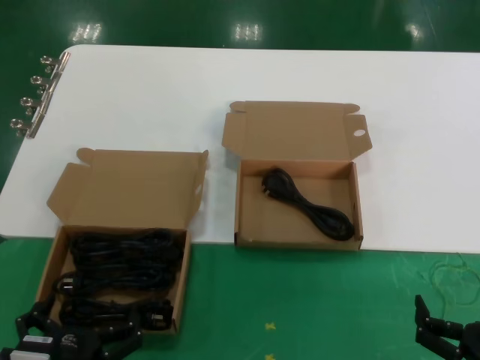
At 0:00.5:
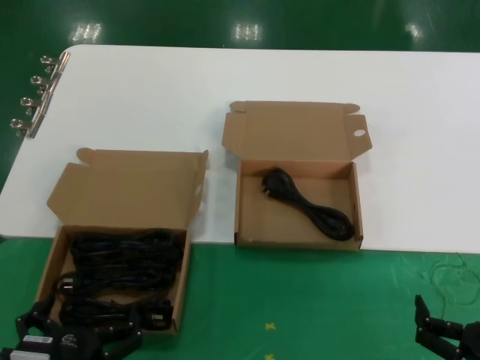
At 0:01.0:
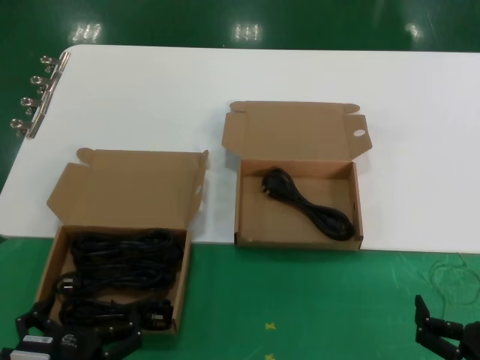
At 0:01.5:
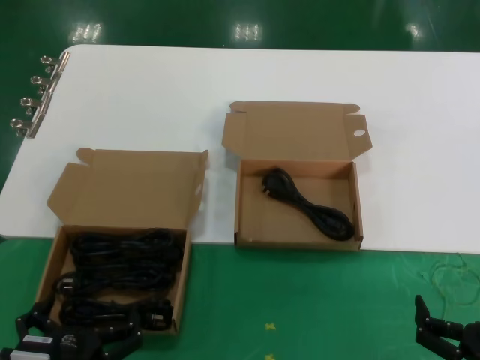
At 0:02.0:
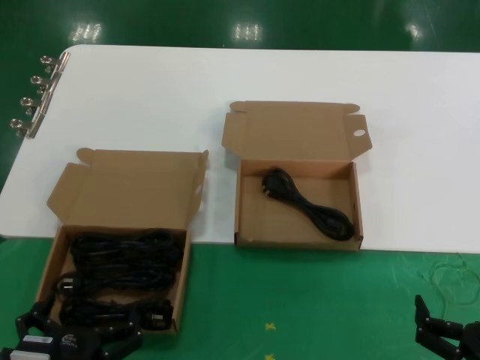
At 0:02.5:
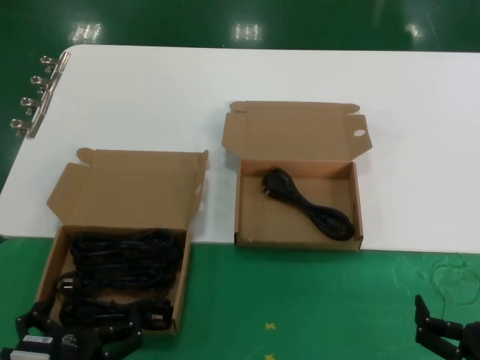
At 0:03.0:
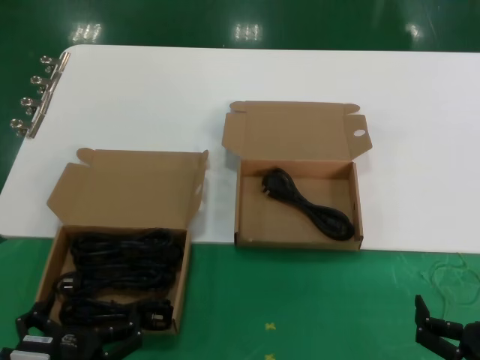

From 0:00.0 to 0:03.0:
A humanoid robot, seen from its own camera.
Task of the whole recording: take the parts from the box containing them and put them into an empty box.
From 0:00.0 to 0:03.0: Neither hand changes place.

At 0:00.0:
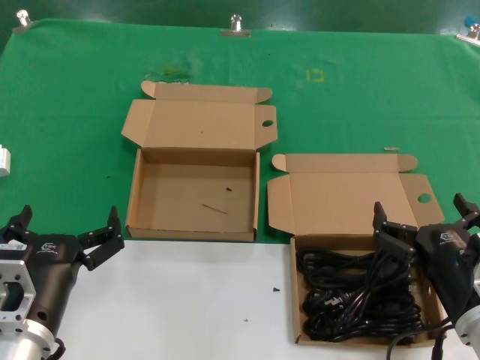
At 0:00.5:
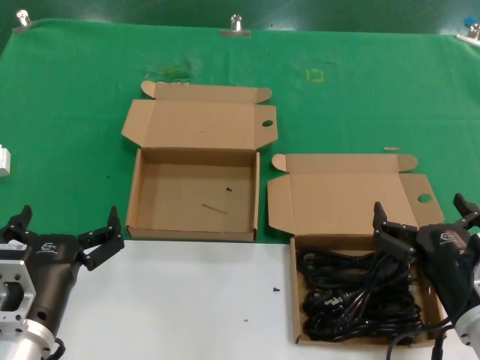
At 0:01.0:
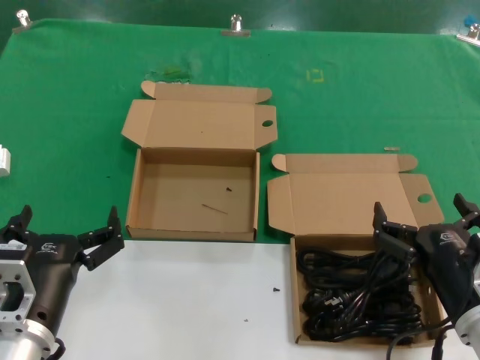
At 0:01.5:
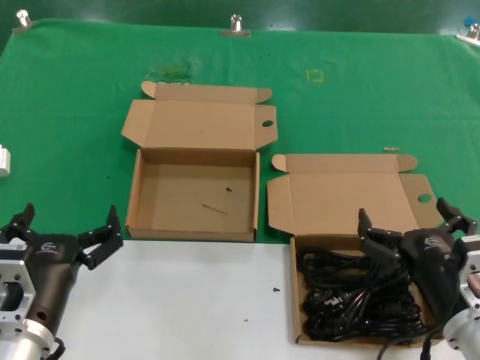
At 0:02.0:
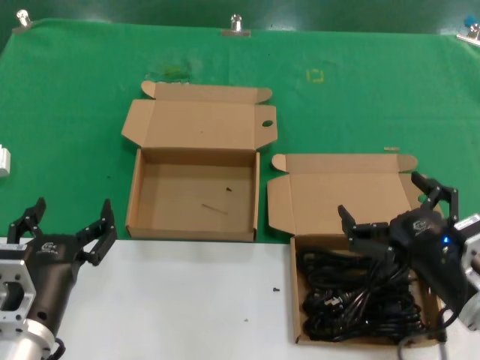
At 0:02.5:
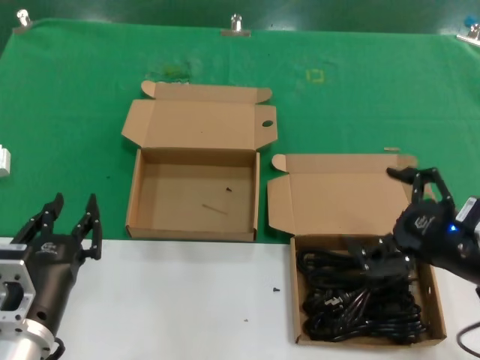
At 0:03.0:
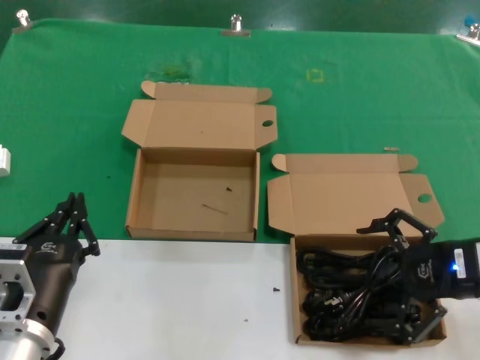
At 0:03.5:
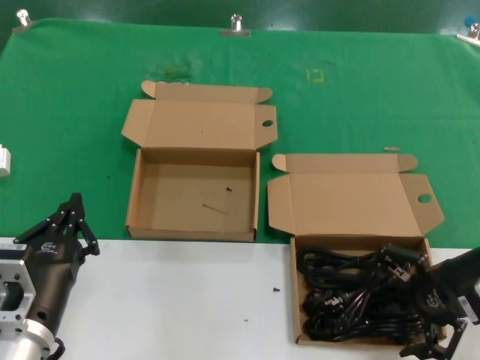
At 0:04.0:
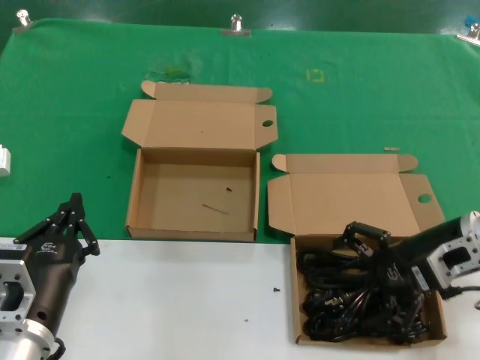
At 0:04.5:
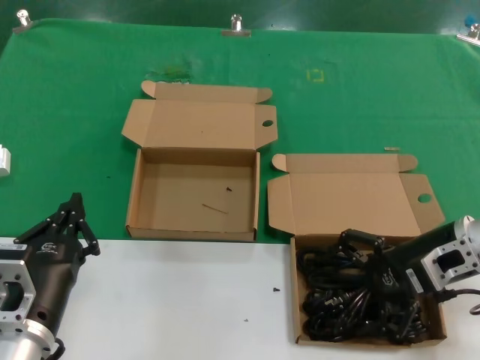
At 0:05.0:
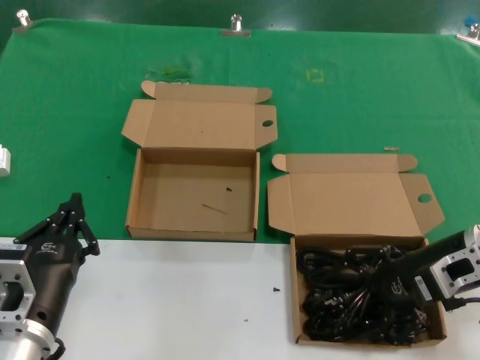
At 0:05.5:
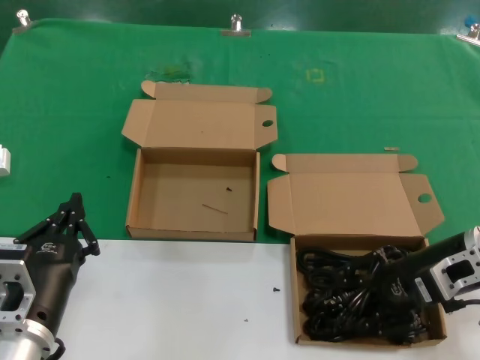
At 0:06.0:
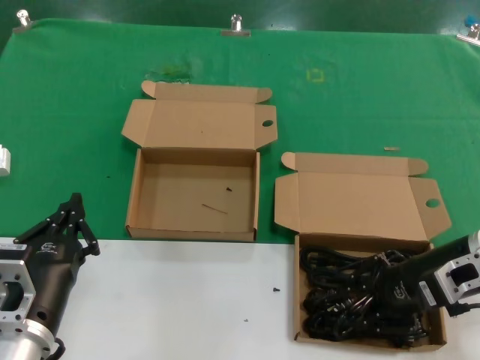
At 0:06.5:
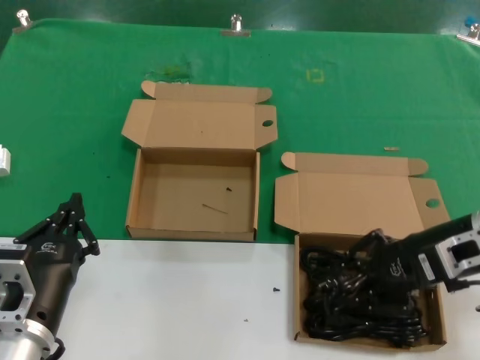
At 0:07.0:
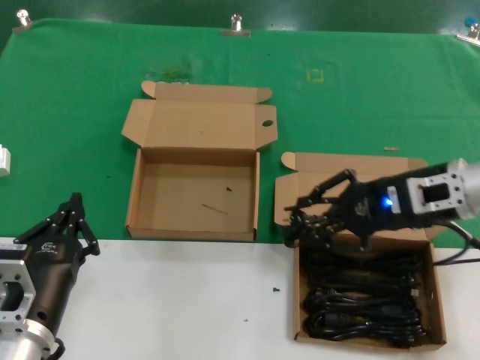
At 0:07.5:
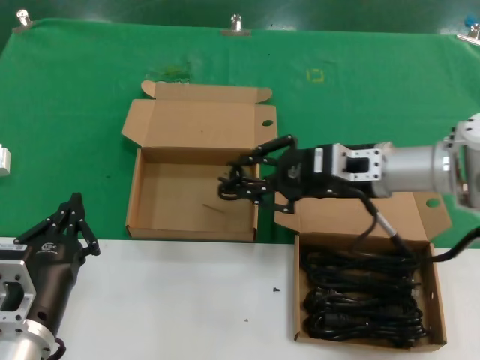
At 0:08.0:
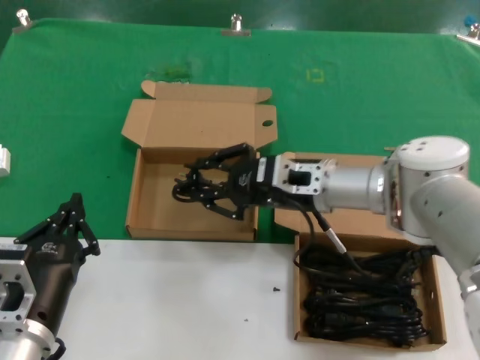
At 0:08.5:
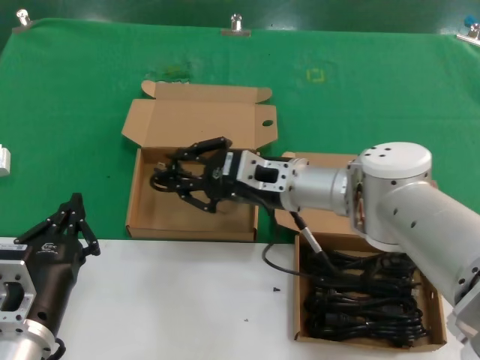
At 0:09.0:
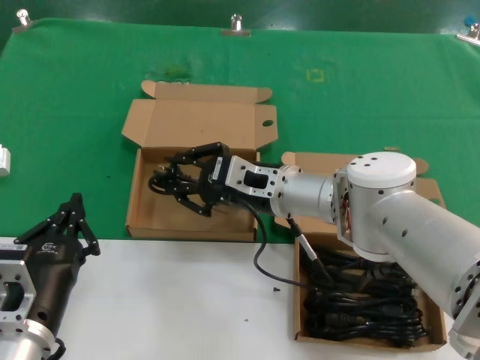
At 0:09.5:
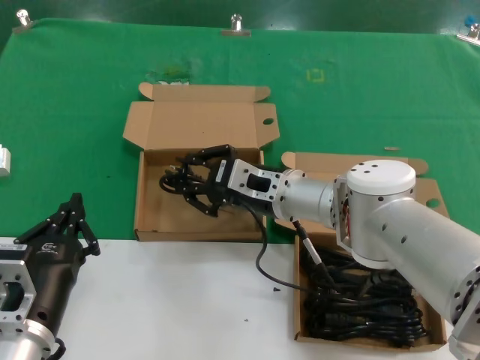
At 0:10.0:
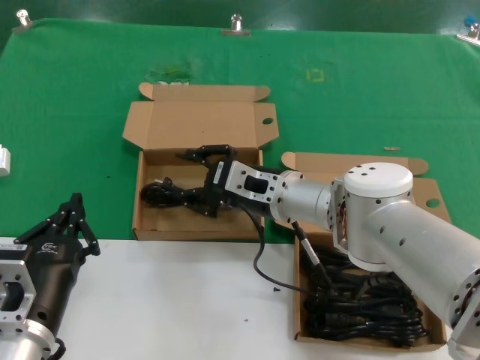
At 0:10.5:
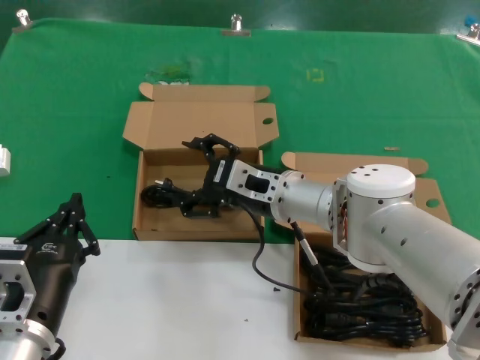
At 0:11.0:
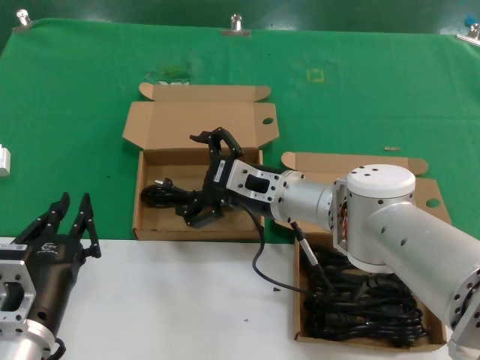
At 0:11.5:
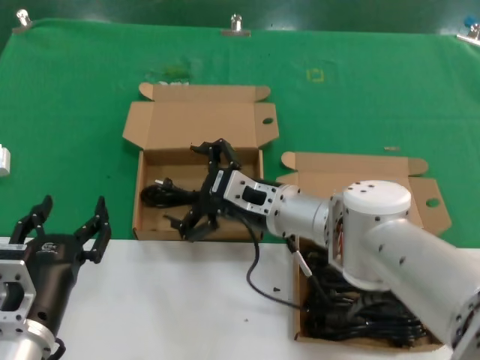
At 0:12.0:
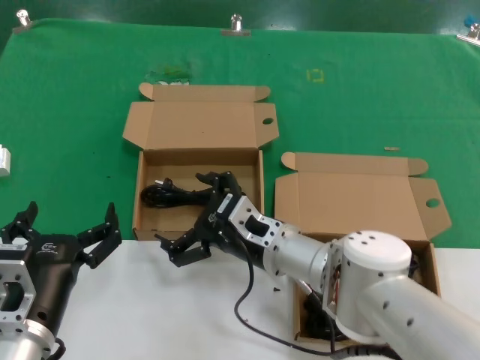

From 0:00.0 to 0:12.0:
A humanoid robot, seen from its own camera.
Task of the whole recording: take the parts from the box containing them and put them into an empty box.
Step, from 0:00.0 to 0:05.5: Grasp the data cable.
Step, from 0:06.0 to 0:10.0: Place the data cable in the another box.
From 0:00.0 to 0:02.0: The hands move only a little.
From 0:02.0 to 0:04.0: The right hand moves forward, upward and to the right, some 15 cm.
From 0:04.0 to 0:06.0: The hands stay close to where they were, moving slightly.
From 0:06.0 to 0:08.0: The right hand heads to the left and forward, covering about 20 cm.
From 0:08.0 to 0:10.0: The right hand shifts roughly 5 cm to the left.
From 0:10.0 to 0:12.0: The right hand shifts approximately 10 cm downward and backward.

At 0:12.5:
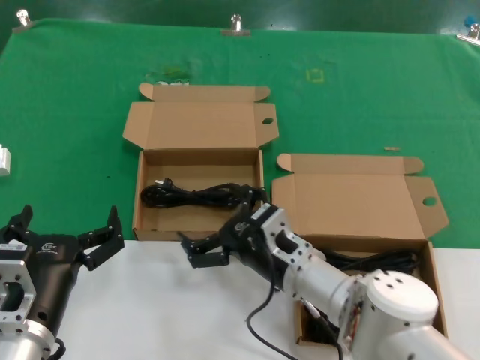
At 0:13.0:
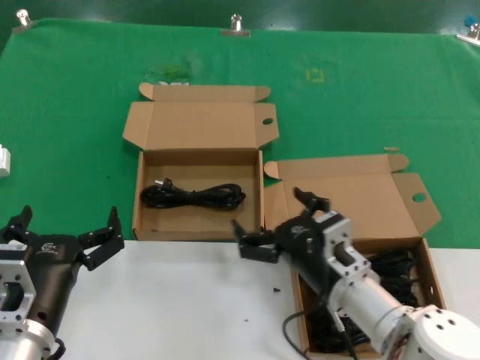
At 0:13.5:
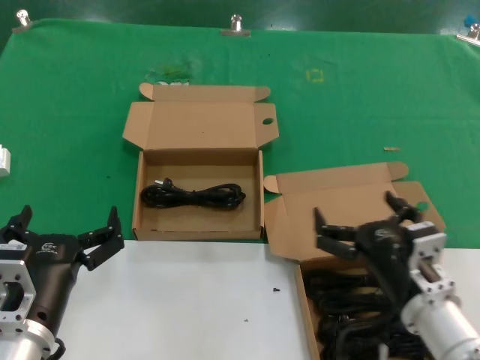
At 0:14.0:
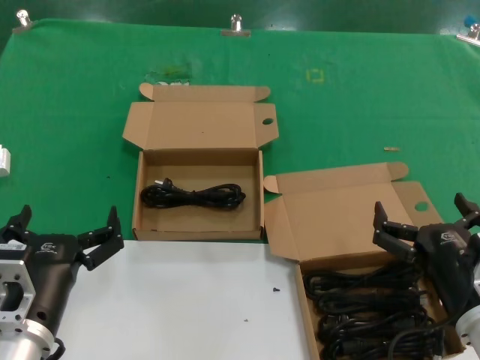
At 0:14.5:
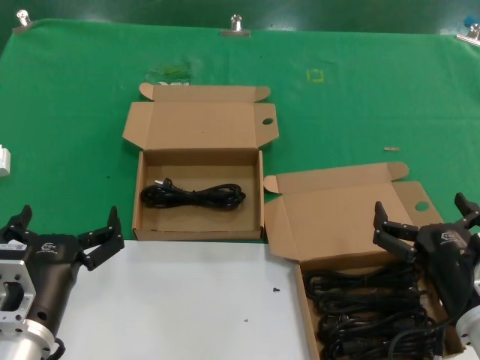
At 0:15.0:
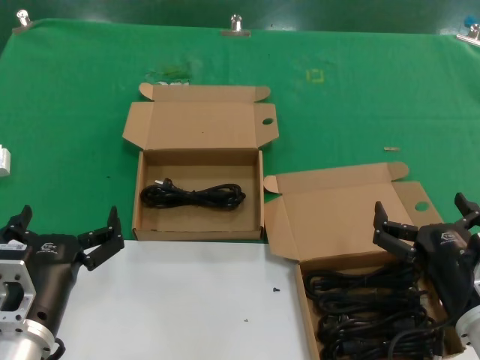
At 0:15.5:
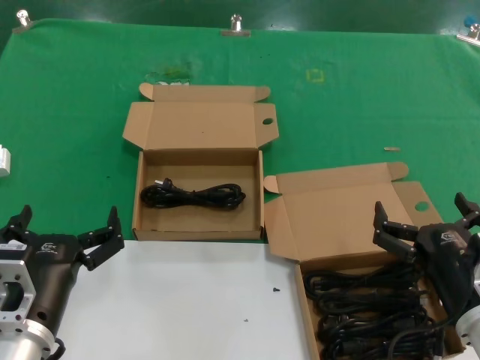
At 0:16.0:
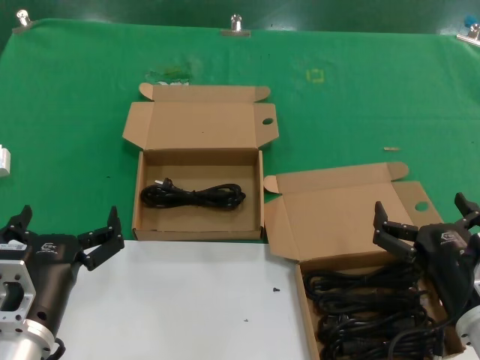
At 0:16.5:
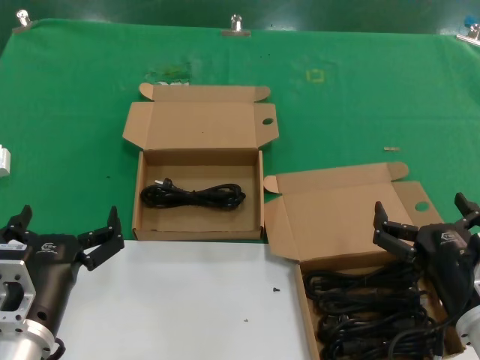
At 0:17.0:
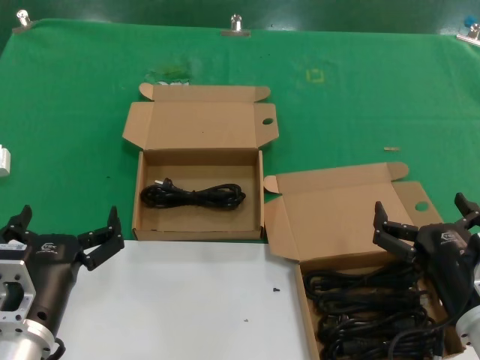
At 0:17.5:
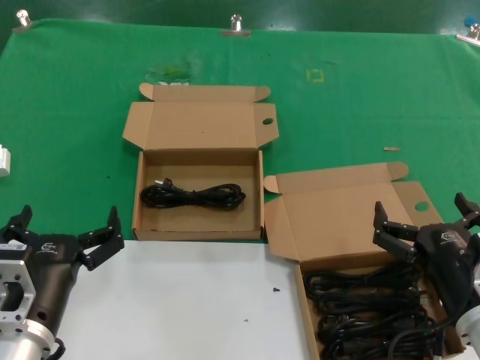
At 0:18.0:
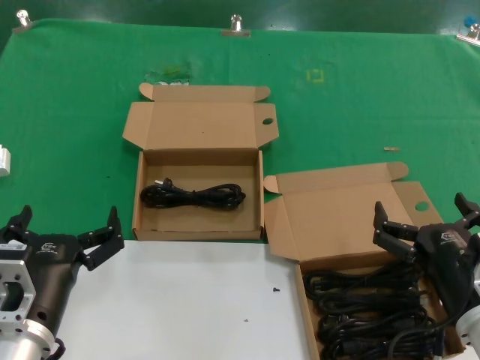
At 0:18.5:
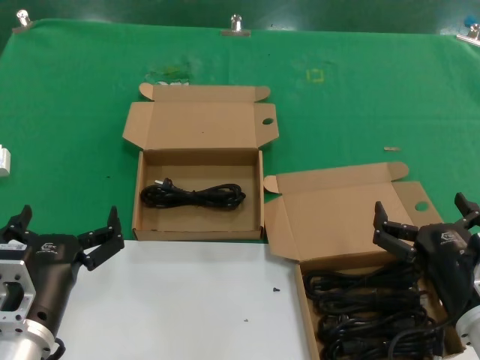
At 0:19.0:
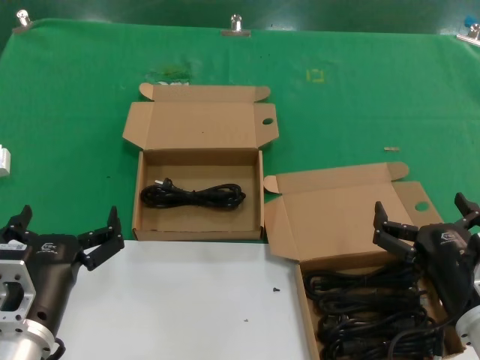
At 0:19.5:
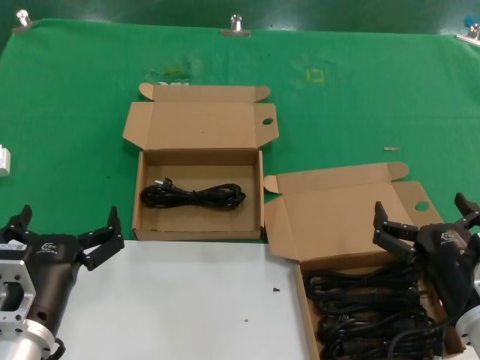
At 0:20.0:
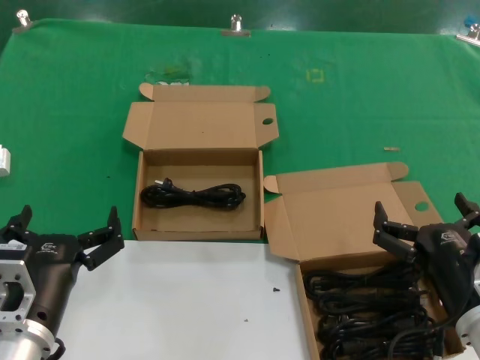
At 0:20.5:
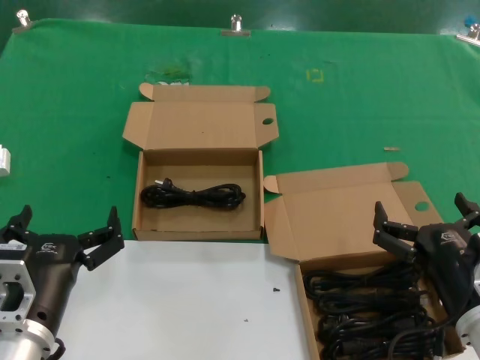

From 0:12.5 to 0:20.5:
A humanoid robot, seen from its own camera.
Task of the whole recording: take the parts from the box containing them and put them into an empty box.
From 0:12.5 to 0:14.5: The right hand travels to the right and backward by roughly 20 cm.
From 0:14.5 to 0:20.5: Both hands stay about where they are.
